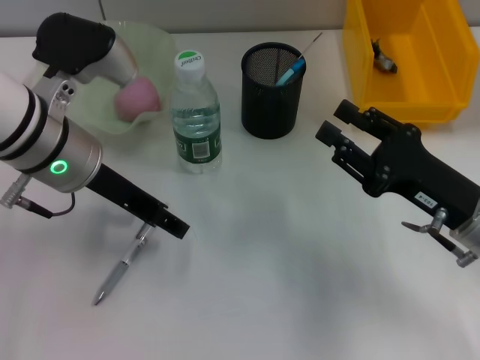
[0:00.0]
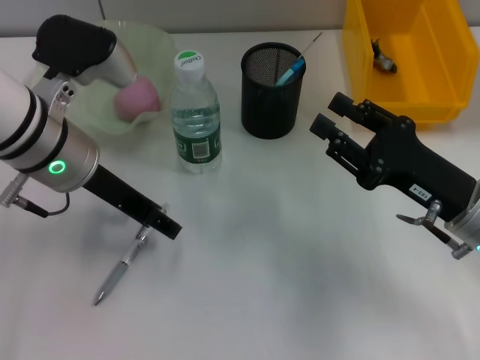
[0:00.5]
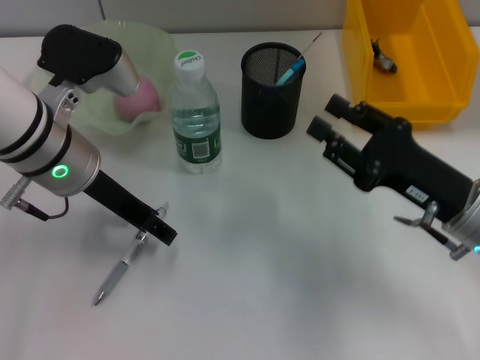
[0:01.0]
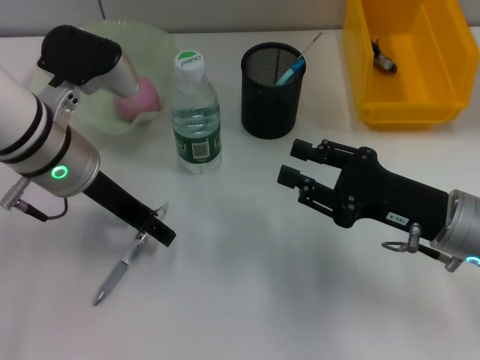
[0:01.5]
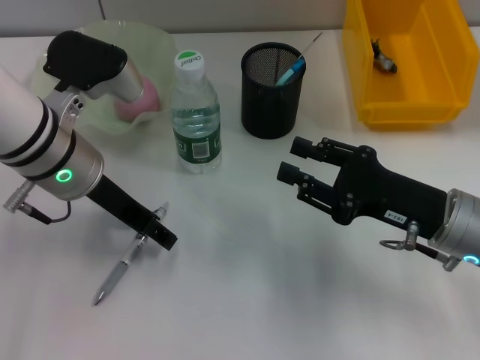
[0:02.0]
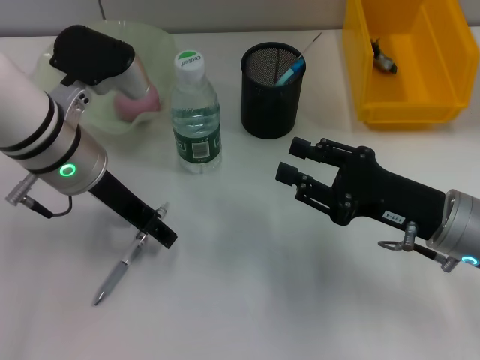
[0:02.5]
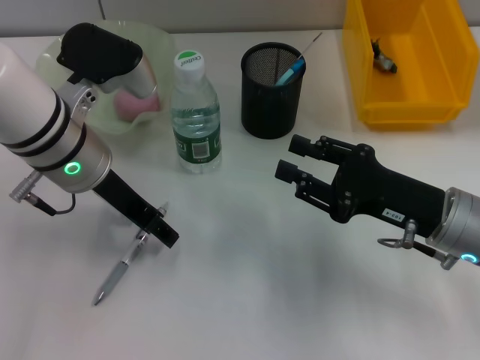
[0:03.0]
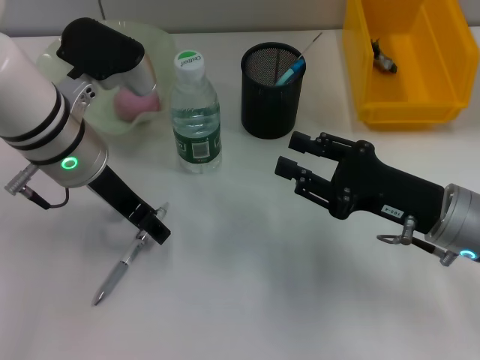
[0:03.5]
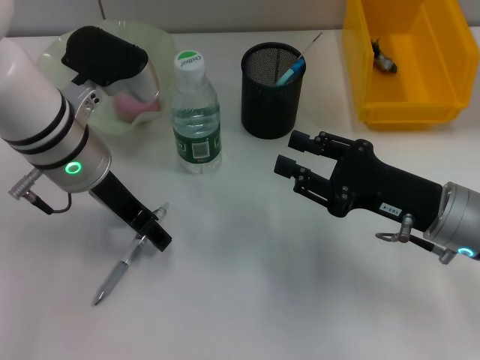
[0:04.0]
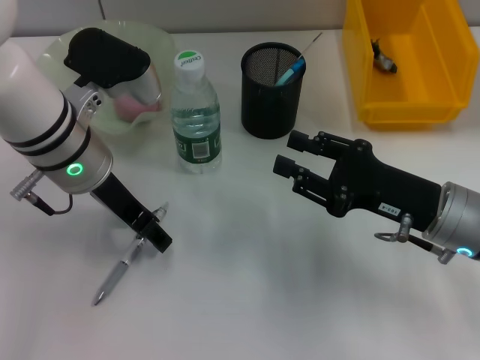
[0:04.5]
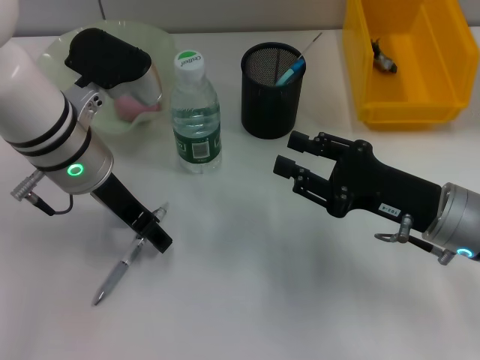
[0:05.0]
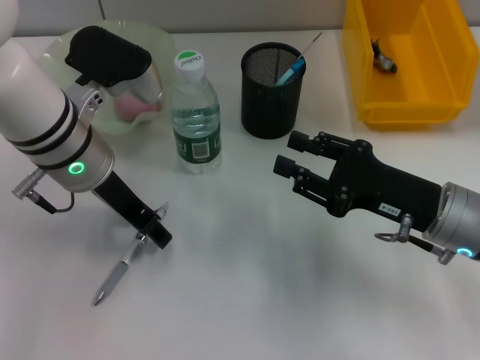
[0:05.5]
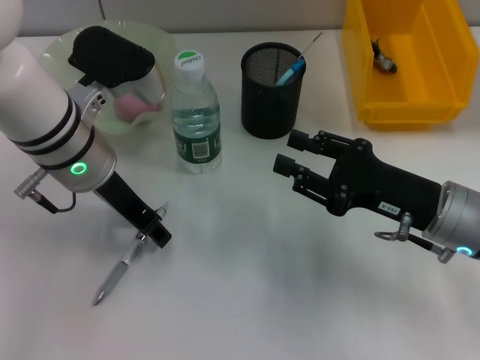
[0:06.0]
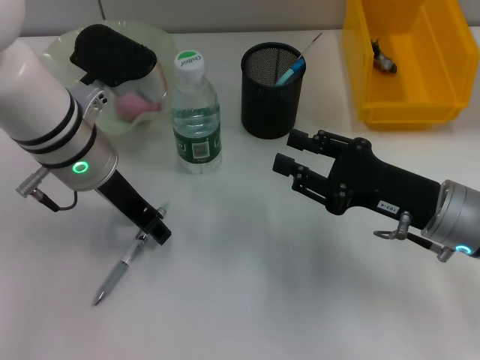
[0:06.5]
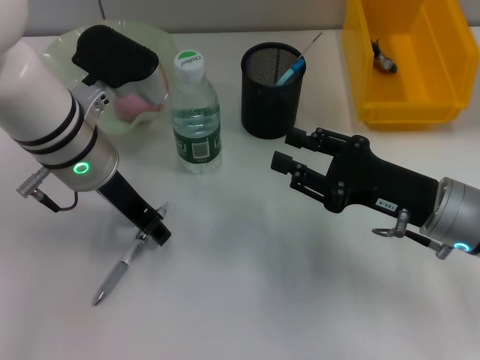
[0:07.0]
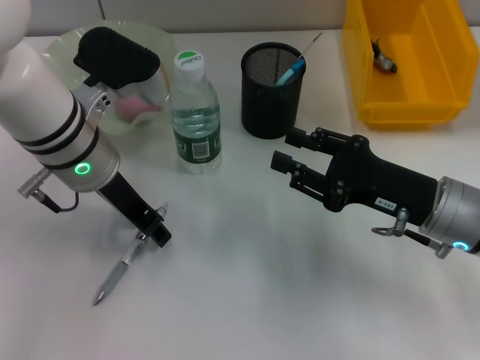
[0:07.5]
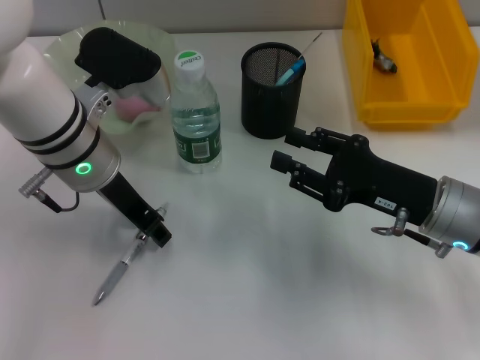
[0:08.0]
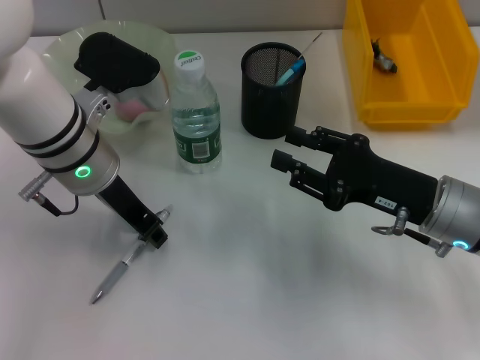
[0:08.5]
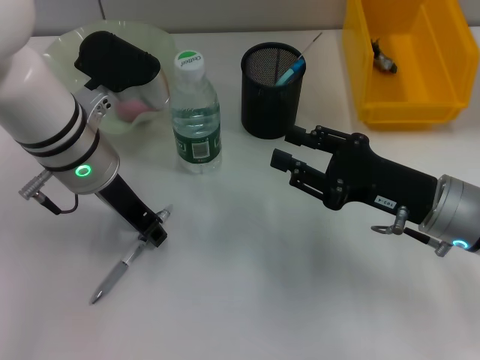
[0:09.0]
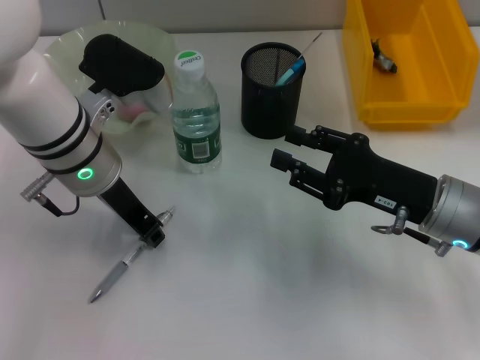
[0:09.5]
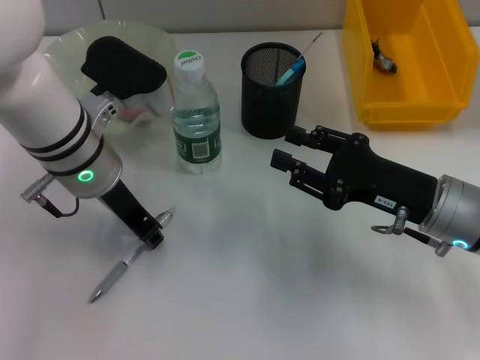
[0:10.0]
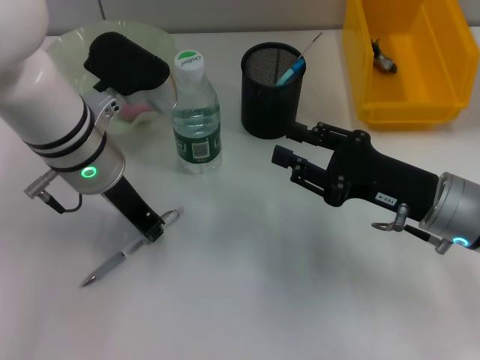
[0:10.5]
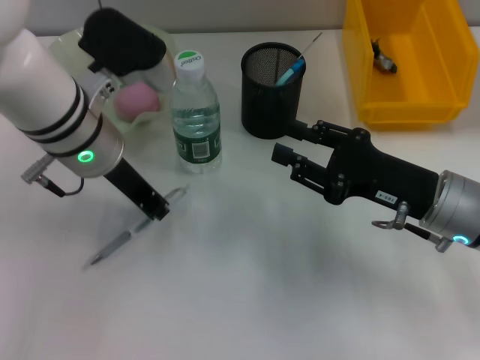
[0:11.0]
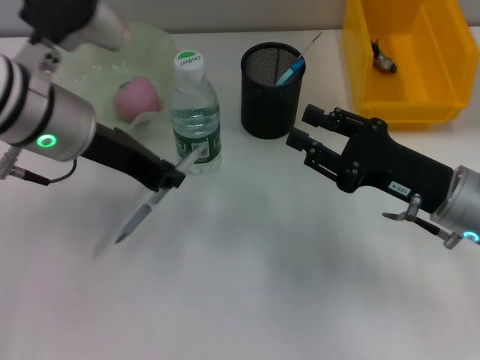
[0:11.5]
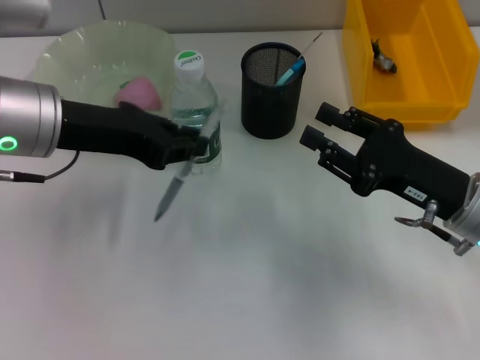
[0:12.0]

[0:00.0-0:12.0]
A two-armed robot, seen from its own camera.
Step, 0:00.0 to 0:10.0: Grab the gray spring-action pen with the left hand.
0:00.0 to 0:04.0: The grippers make only small movements.
0:04.0 to 0:08.0: Neither gripper changes place.
0:08.0 to 0:10.0: The left gripper closes its fingers.
0:10.0 to 0:12.0: The left gripper goes about 10 cm upward and to the left.

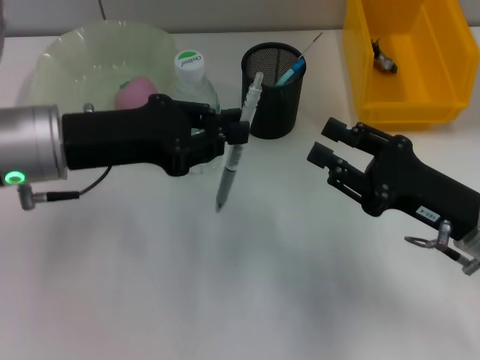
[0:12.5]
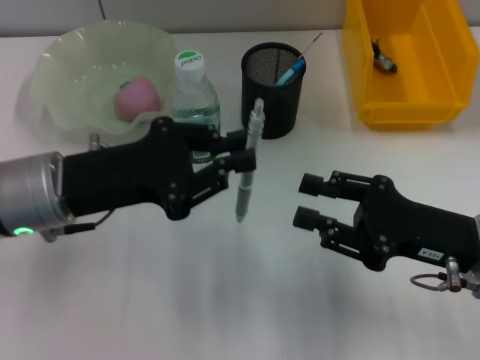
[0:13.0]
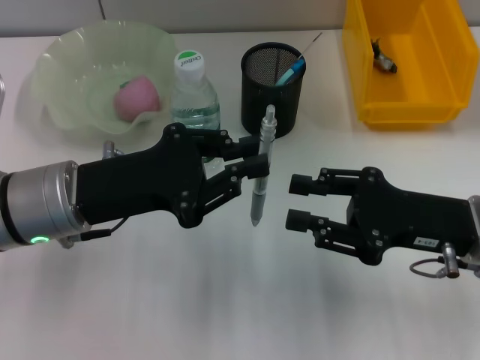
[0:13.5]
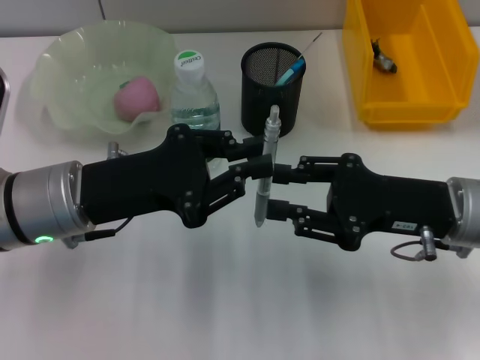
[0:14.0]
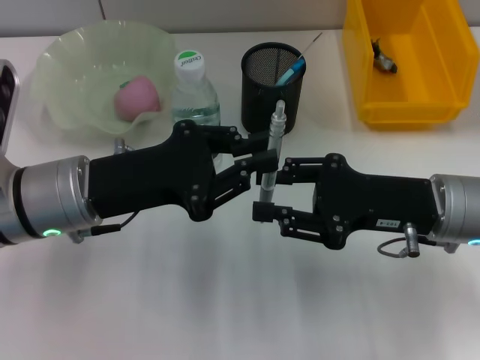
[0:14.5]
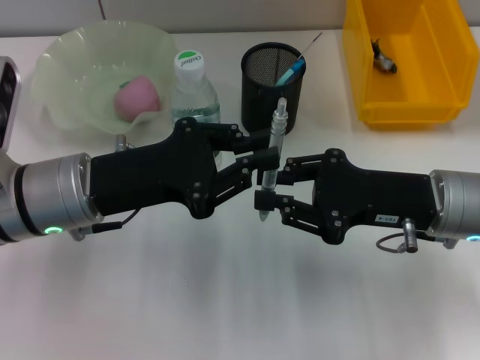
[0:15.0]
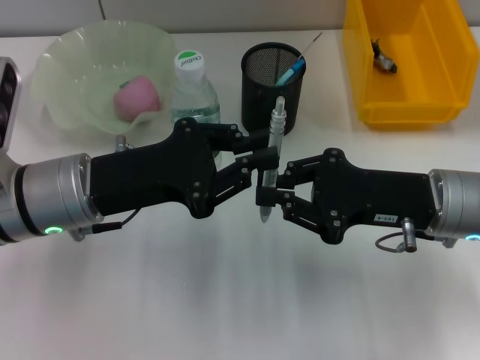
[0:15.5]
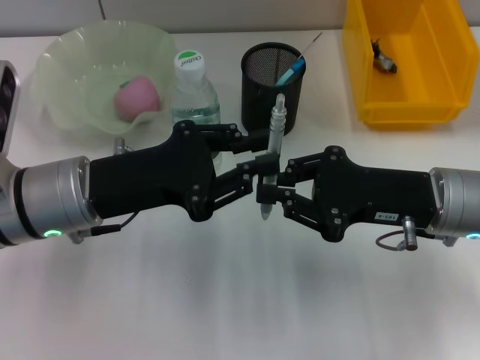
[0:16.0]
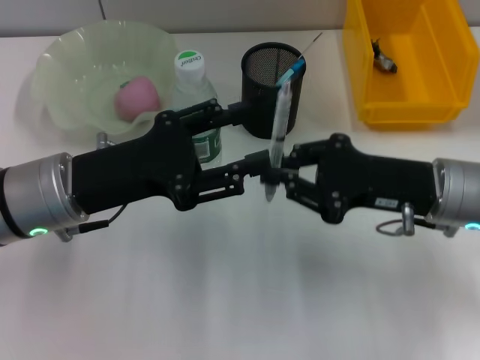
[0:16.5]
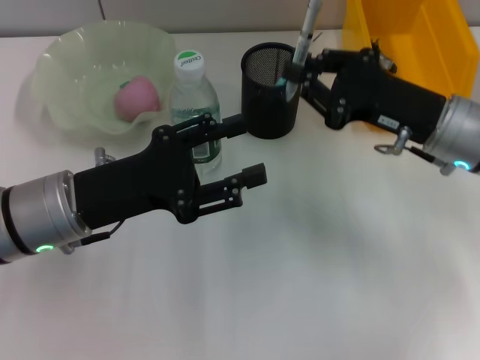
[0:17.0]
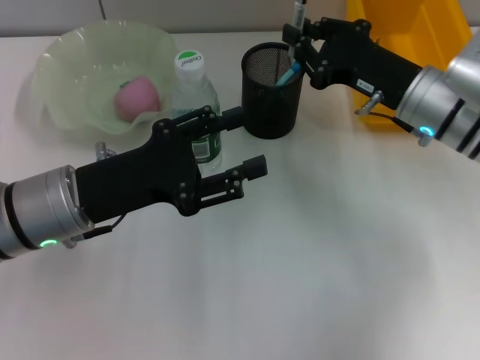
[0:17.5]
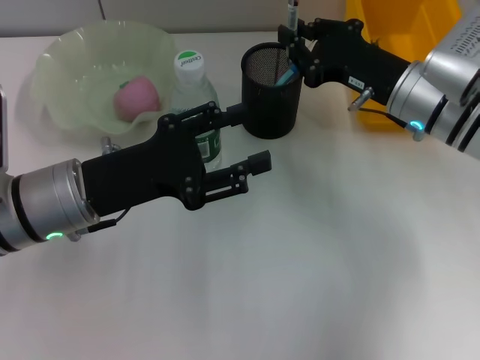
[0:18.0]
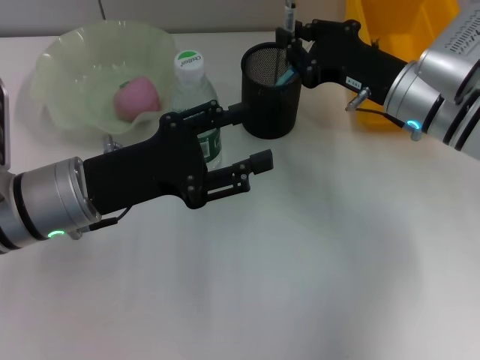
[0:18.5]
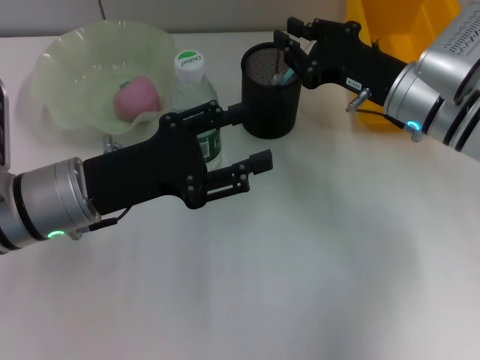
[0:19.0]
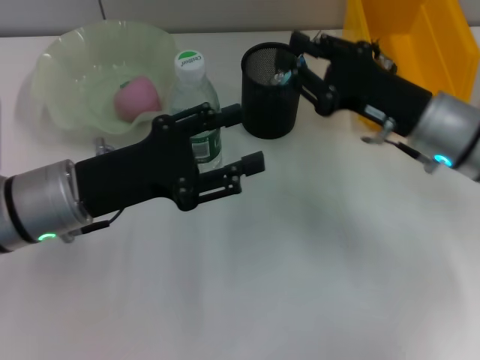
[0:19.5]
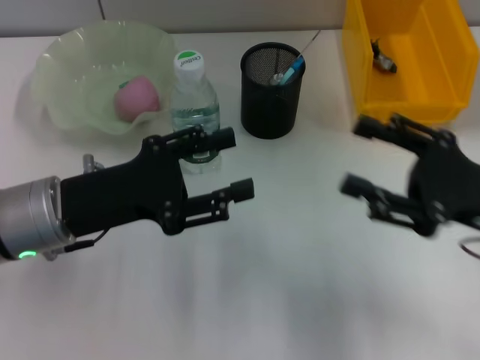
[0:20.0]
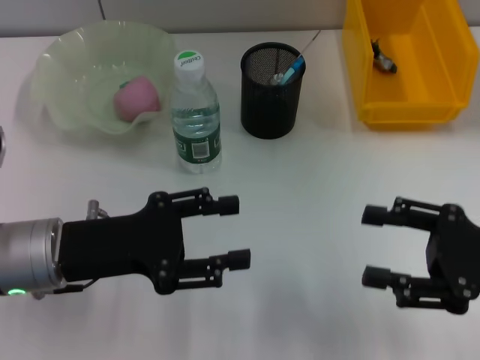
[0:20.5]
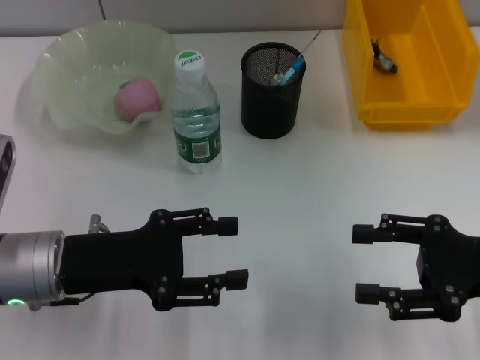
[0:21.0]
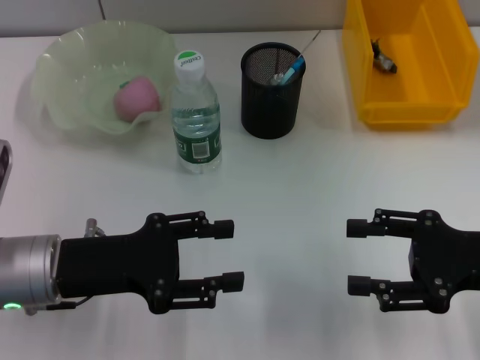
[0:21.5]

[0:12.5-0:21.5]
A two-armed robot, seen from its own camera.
Step, 0:12.5 to 0:16.0: Pass the gray spring-action pen from the left hand to the right hand.
Step, 0:17.0 to 0:18.5: Place the gray spring-action pen into the pen holder with the right hand.
0:12.5 to 0:14.5: The left gripper ends up about 5 cm from where it was. Meanwhile the right gripper moves some 5 cm.
0:14.5 to 0:17.0: The left gripper opens; the right gripper goes some 5 cm forward, and closes its fingers.
0:17.0 to 0:19.5: There are only small adjustments of the grippers.
0:19.5 to 0:21.5: The right gripper goes roughly 15 cm backward and to the right, and opens its fingers.
